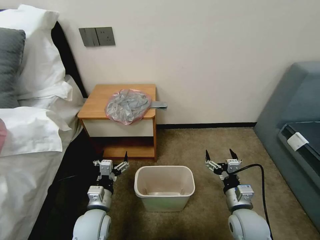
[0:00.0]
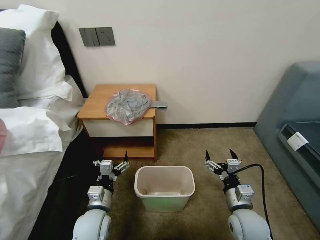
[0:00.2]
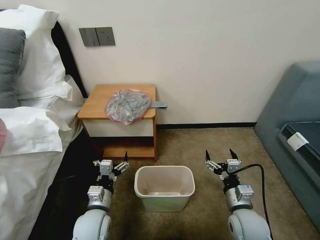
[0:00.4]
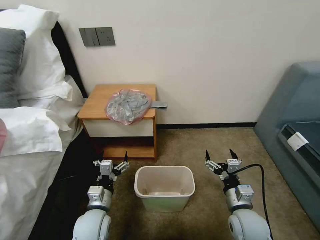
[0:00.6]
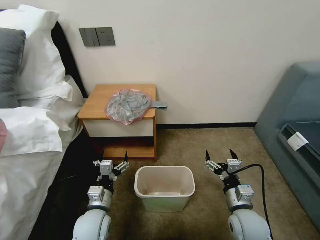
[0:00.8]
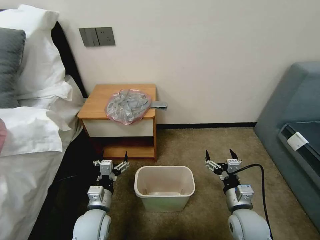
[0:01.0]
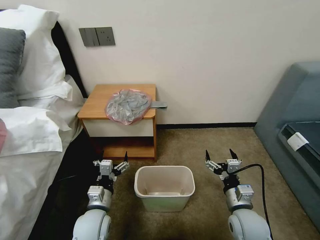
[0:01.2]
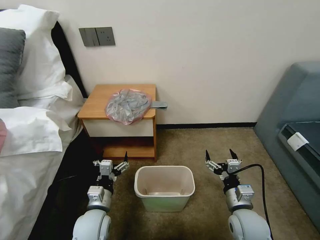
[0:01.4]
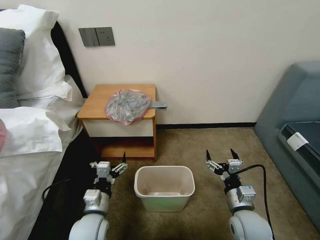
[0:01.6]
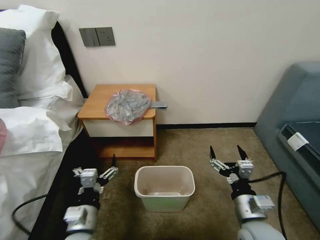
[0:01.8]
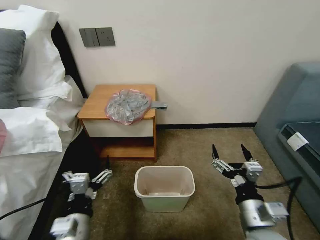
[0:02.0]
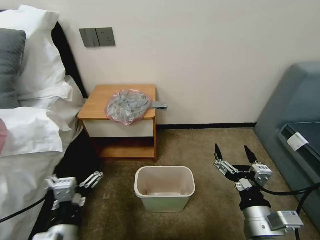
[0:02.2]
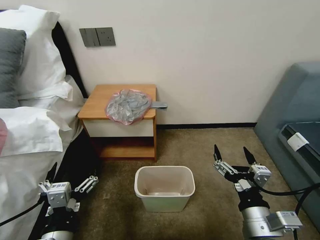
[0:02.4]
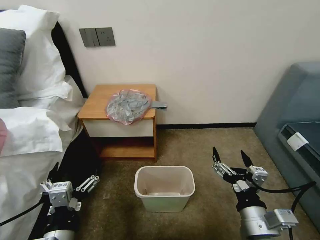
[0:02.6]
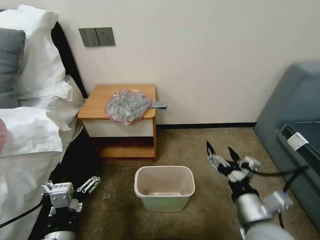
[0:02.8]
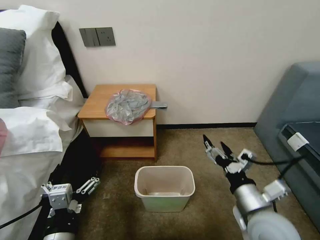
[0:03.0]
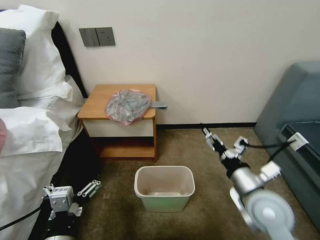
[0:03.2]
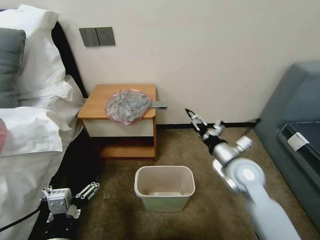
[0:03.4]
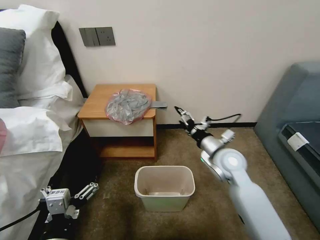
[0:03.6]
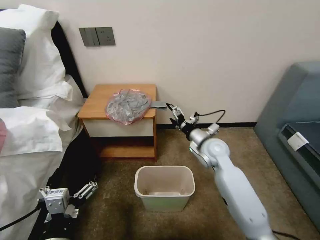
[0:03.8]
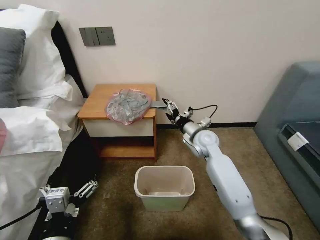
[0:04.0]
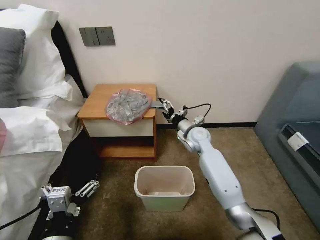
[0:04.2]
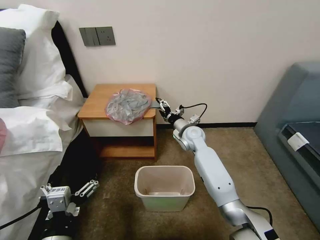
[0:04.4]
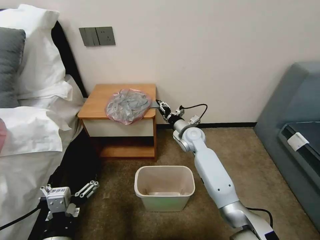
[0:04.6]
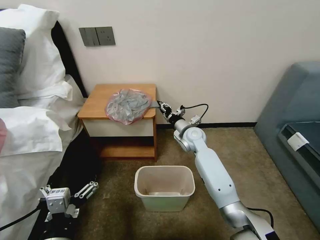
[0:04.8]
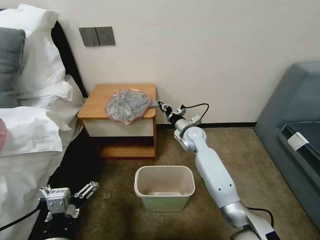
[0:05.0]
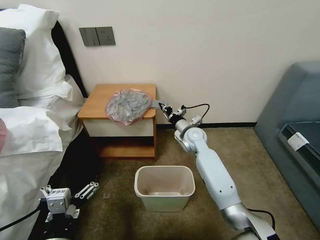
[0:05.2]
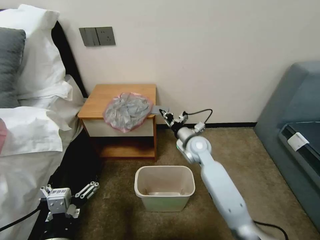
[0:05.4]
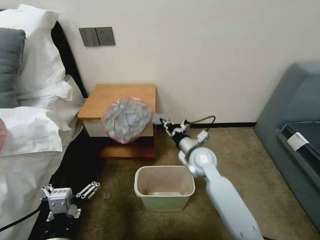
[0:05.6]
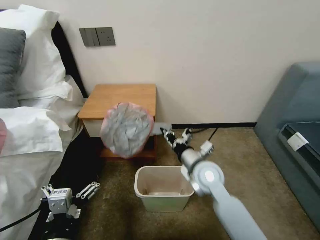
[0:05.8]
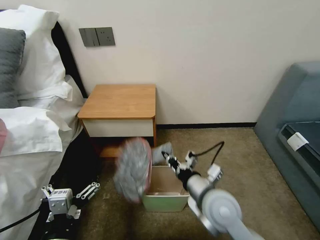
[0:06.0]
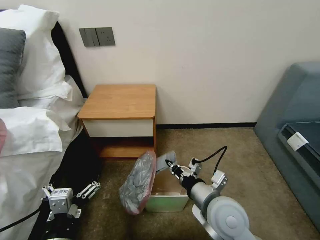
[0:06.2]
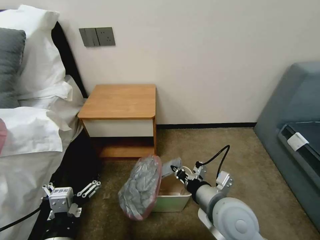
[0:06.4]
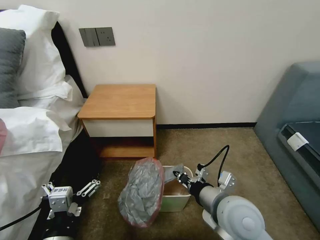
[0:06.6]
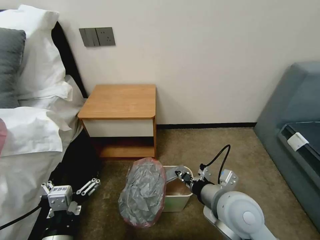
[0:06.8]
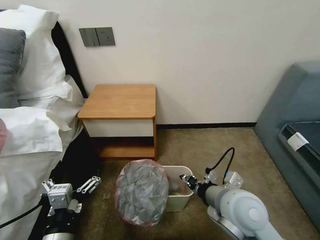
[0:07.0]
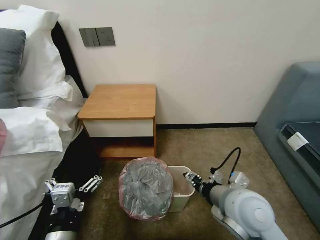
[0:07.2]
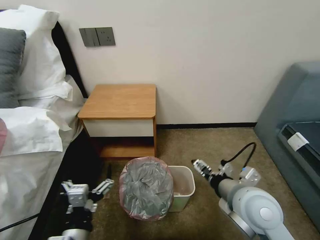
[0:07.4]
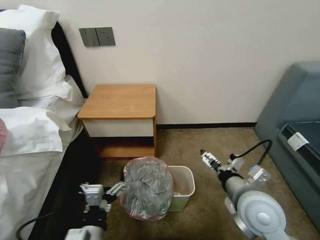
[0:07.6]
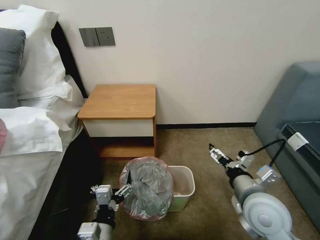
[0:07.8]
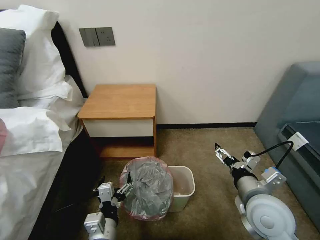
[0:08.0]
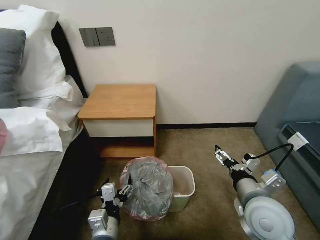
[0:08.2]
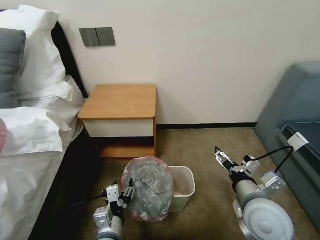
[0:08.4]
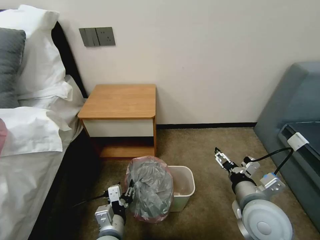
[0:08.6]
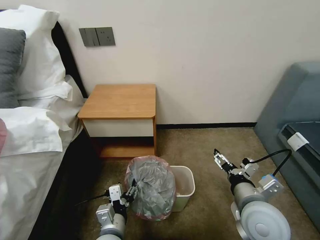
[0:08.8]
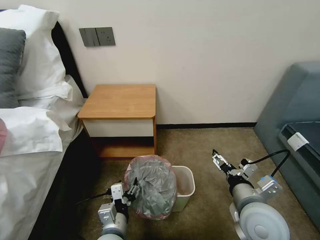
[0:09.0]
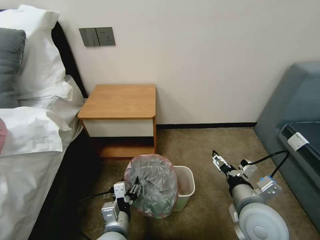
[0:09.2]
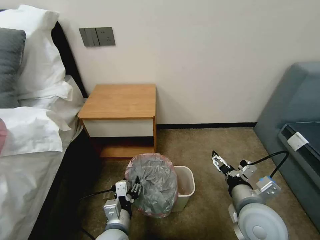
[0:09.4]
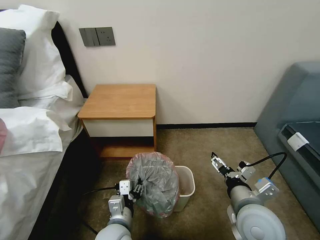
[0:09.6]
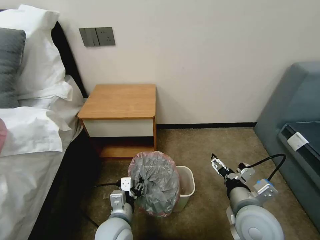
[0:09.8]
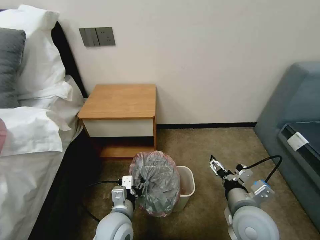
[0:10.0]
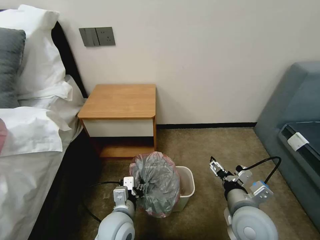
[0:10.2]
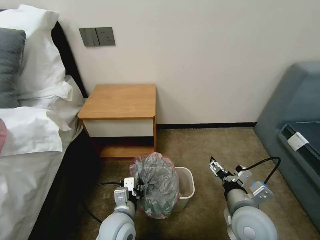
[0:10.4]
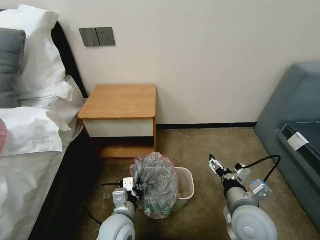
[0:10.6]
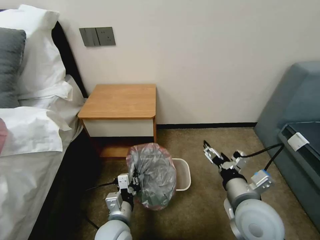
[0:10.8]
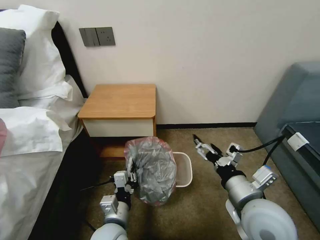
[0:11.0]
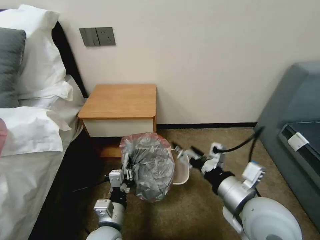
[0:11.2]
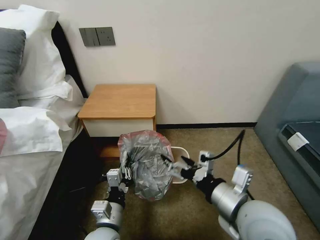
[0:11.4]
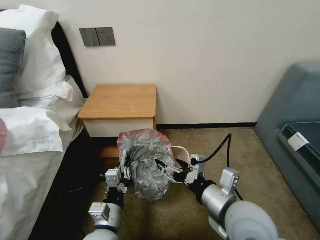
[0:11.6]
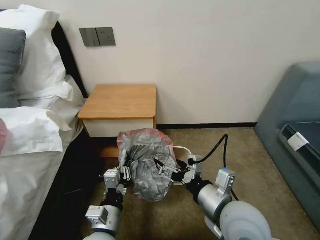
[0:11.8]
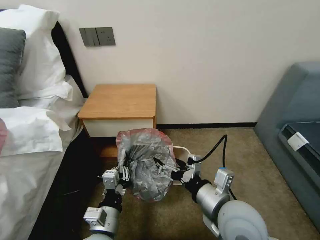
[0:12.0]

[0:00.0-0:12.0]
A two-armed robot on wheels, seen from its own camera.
Task of the whole recording: Pick up the garbage bag from the table and place it over the trash can.
0:01.6 to 0:03.0: The left gripper shifts about 15 cm backward and upward. The right gripper heads upward, covering roughly 10 cm.
0:03.0 to 0:04.4: The right gripper goes about 30 cm forward.
0:04.4 to 0:06.0: The right gripper is displaced backward by about 25 cm, and closes.
0:06.0 to 0:07.6: The left gripper moves downward, approximately 5 cm. The right gripper goes approximately 10 cm to the right, and opens up.
0:07.6 to 0:09.0: The left gripper moves approximately 5 cm.
0:09.0 to 0:10.4: The left gripper travels forward by roughly 5 cm, and closes up.
0:10.4 to 0:12.0: The left gripper is displaced backward by approximately 5 cm. The right gripper travels upward and to the left by about 10 cm.

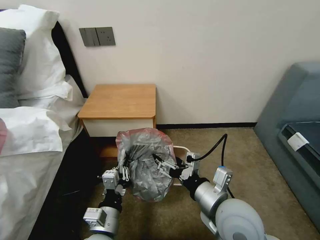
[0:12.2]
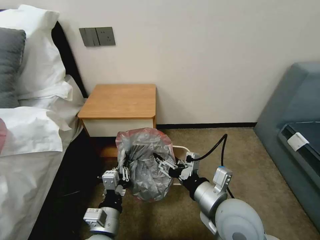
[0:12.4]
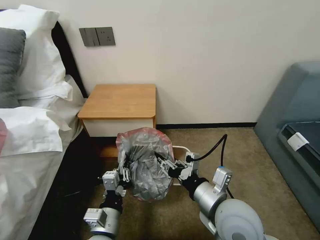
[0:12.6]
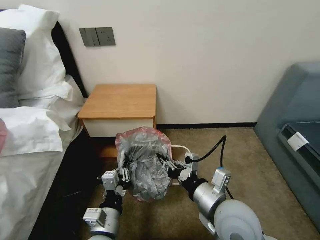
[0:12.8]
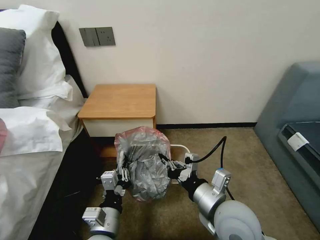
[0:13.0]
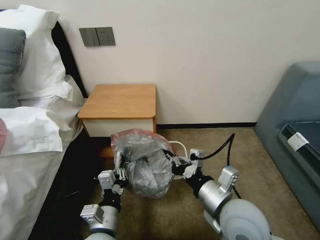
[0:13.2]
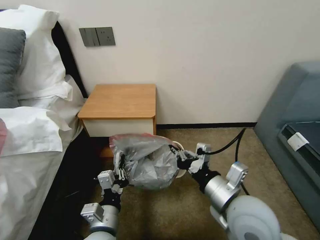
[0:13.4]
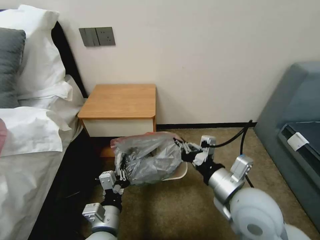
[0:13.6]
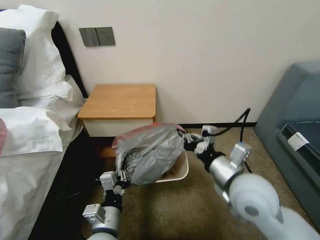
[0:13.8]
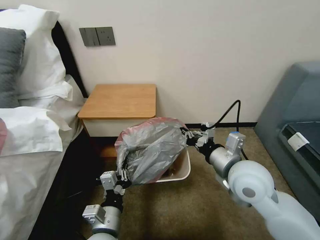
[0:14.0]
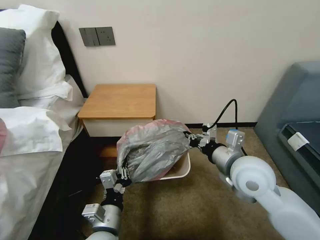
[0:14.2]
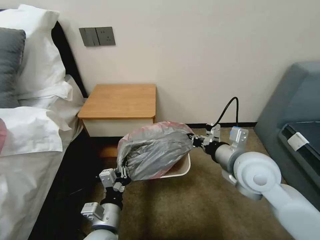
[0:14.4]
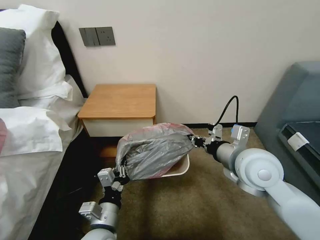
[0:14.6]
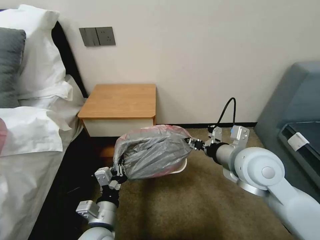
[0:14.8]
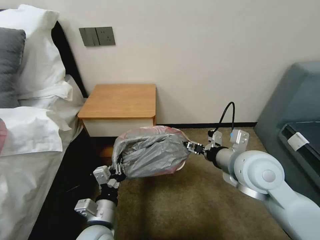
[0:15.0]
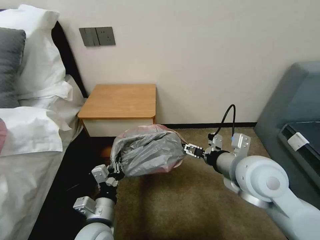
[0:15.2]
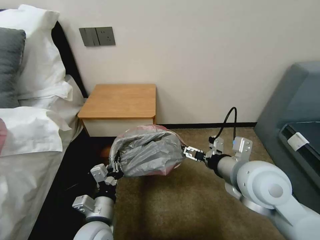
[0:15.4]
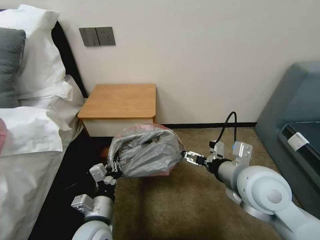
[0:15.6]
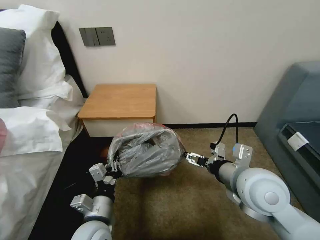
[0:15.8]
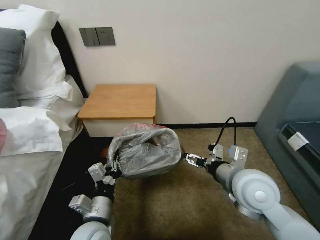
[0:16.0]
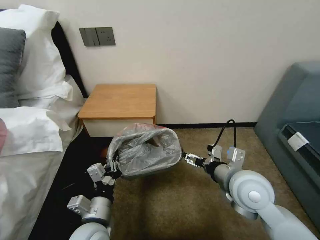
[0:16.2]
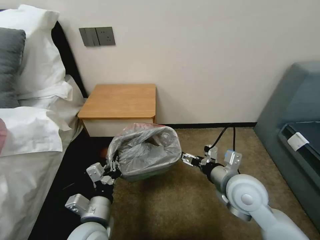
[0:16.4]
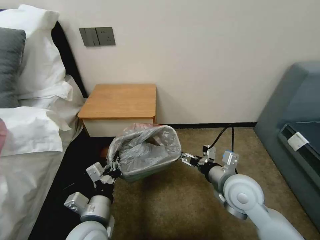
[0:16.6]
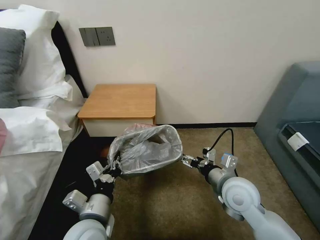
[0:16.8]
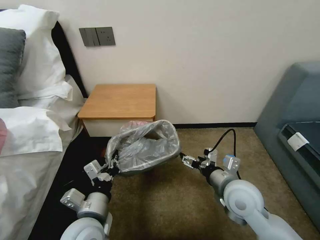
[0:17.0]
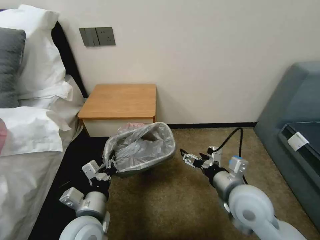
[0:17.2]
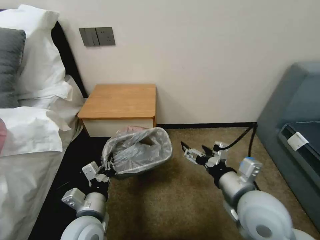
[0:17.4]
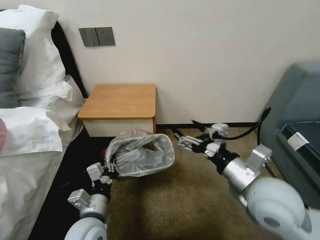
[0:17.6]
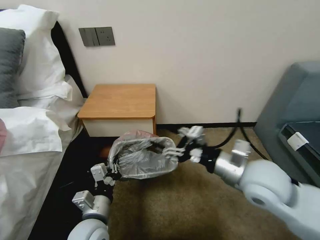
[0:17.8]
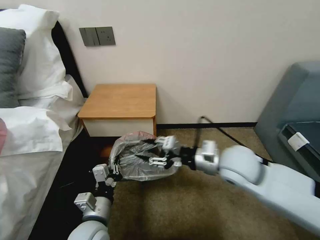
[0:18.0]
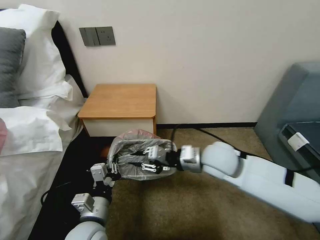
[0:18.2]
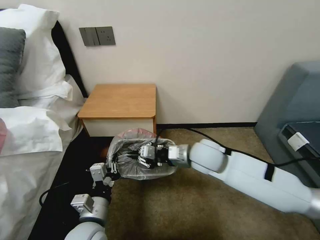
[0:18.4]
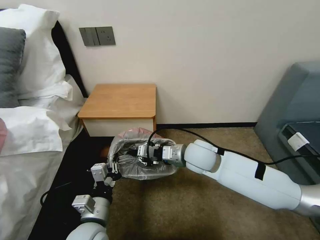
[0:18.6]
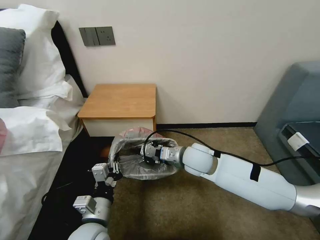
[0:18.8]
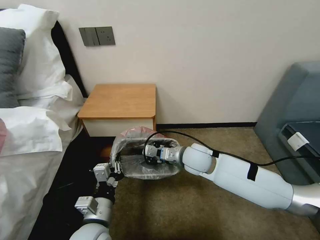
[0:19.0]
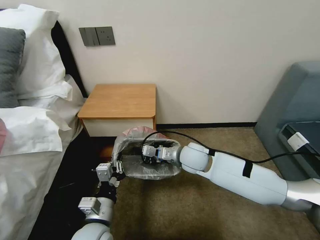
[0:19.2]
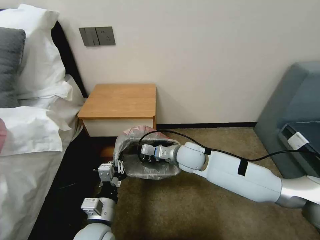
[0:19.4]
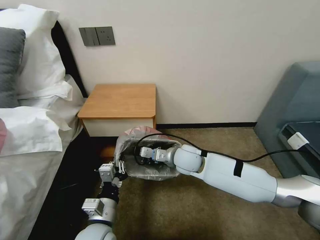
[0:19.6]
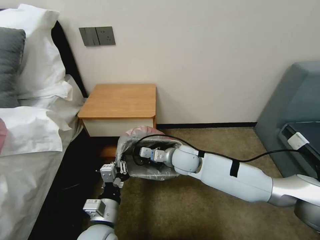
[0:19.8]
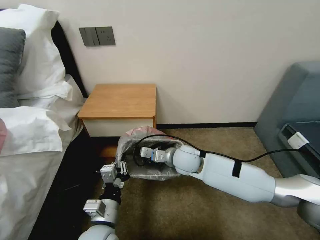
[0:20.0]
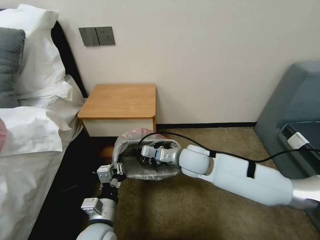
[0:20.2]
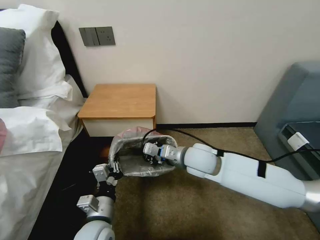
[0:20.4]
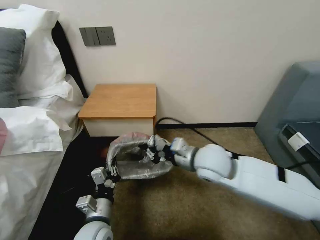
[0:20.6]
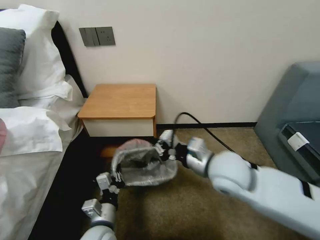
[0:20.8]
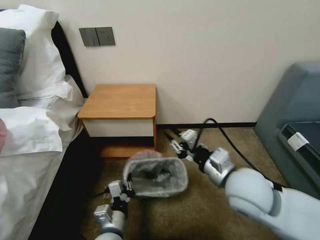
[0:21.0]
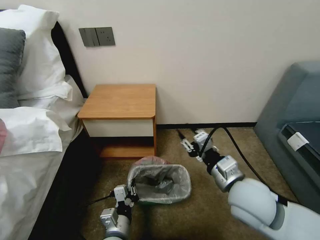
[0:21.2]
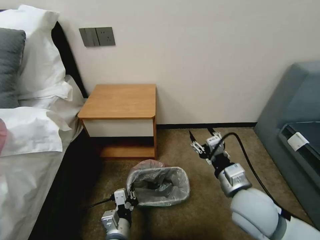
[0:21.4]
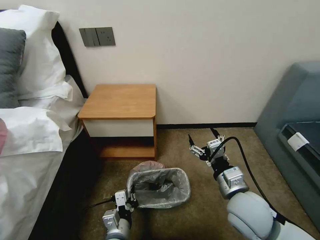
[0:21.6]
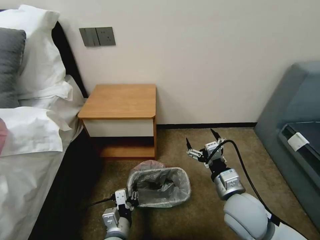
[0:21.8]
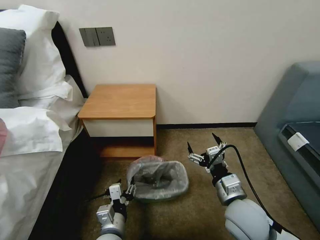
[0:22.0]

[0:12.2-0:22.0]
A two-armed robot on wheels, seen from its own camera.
Task of the whole recording: Pick up the garbage bag from the table and place it over the trash can.
0:12.2 to 0:13.6: The right gripper closes up.
0:13.6 to 0:15.0: The right gripper shifts roughly 5 cm forward, and opens its fingers.
0:15.0 to 0:16.4: The right gripper goes roughly 10 cm downward, and opens.
0:16.4 to 0:17.8: The right gripper heads upward, covering approximately 5 cm.
0:17.8 to 0:19.2: The right gripper moves forward, to the left and downward, some 20 cm, and closes its fingers.
0:19.2 to 0:20.6: The right gripper moves upward and backward, approximately 10 cm.
0:20.6 to 0:22.0: The left gripper moves approximately 5 cm, and opens, while the right gripper heads backward, downward and to the right, covering some 15 cm, and opens its fingers.
